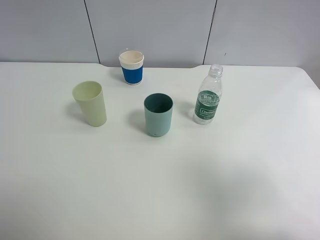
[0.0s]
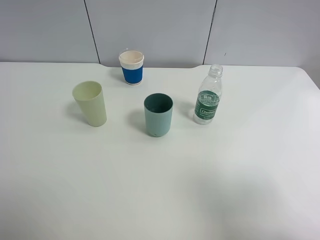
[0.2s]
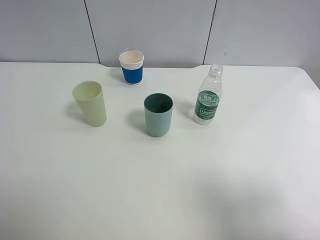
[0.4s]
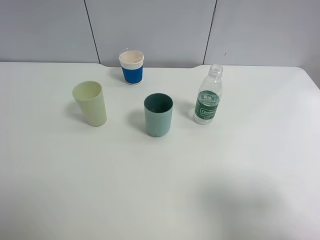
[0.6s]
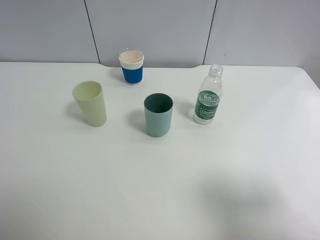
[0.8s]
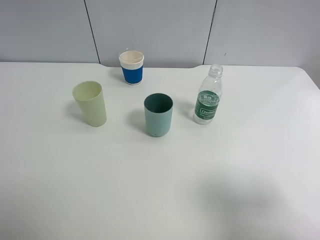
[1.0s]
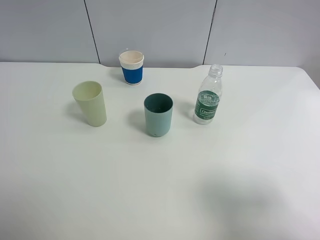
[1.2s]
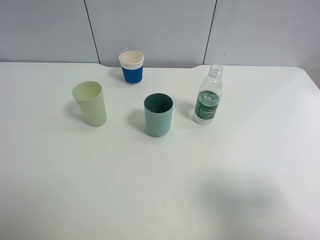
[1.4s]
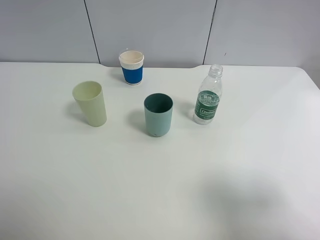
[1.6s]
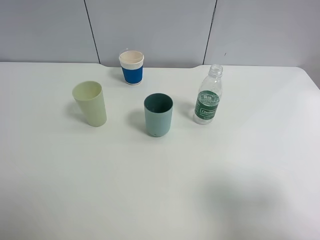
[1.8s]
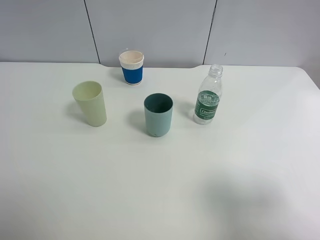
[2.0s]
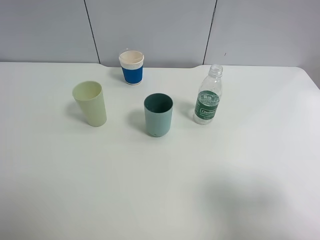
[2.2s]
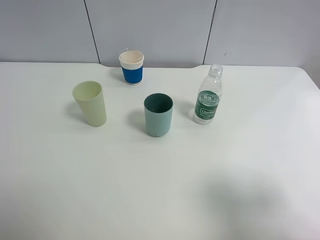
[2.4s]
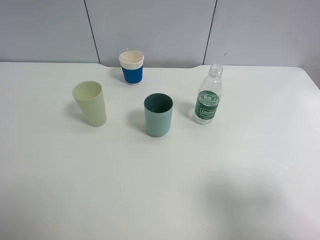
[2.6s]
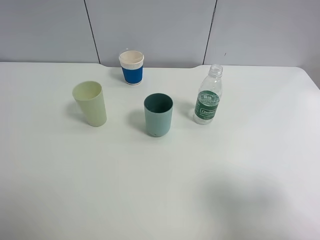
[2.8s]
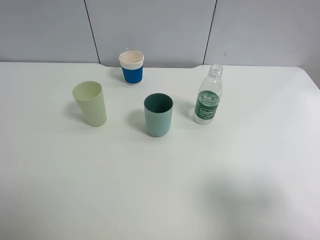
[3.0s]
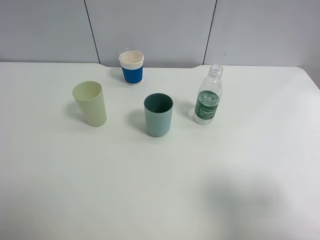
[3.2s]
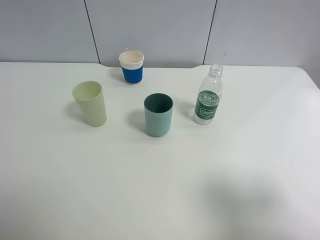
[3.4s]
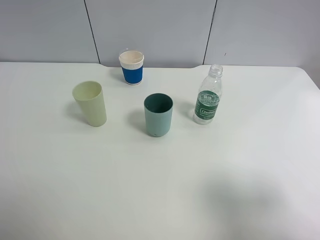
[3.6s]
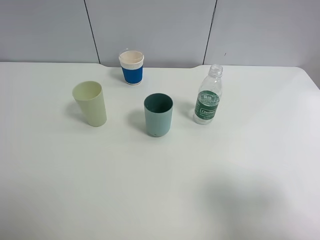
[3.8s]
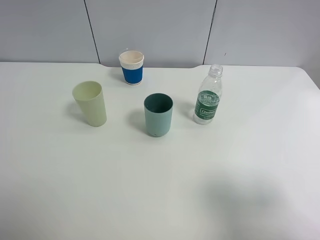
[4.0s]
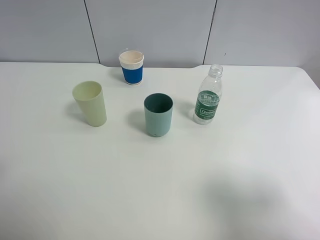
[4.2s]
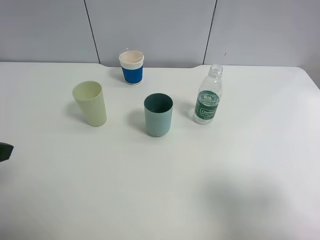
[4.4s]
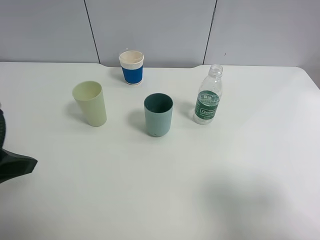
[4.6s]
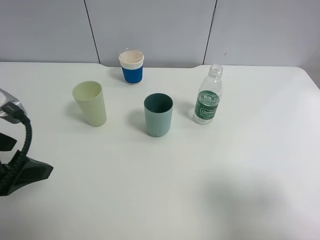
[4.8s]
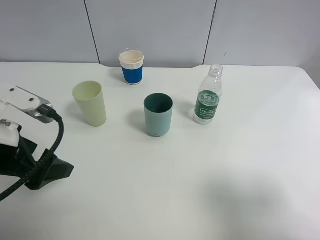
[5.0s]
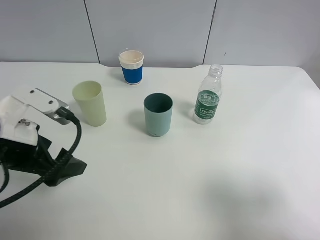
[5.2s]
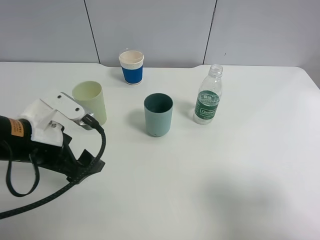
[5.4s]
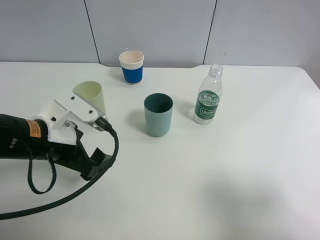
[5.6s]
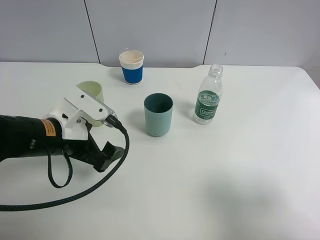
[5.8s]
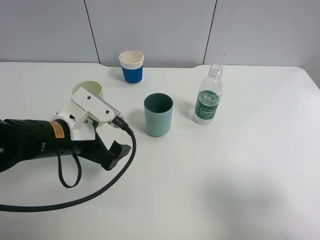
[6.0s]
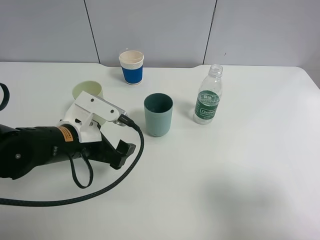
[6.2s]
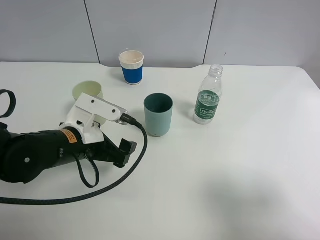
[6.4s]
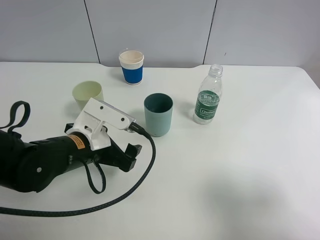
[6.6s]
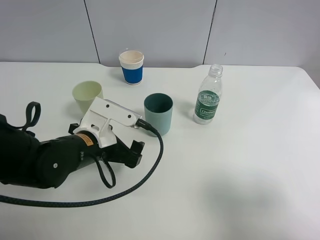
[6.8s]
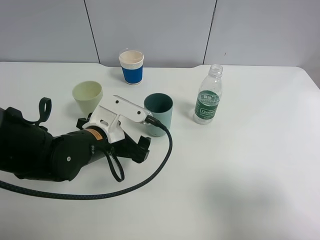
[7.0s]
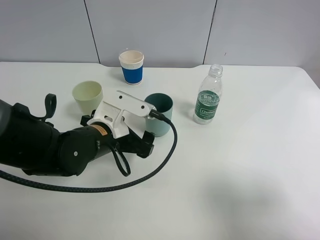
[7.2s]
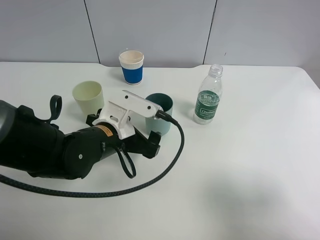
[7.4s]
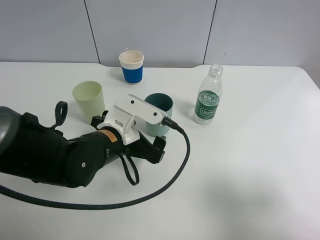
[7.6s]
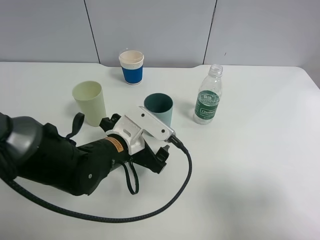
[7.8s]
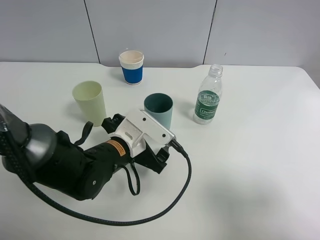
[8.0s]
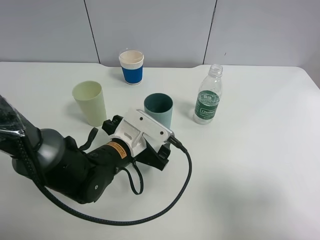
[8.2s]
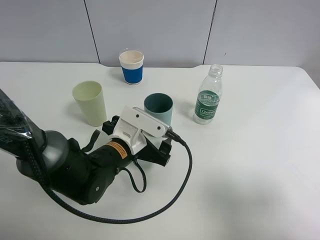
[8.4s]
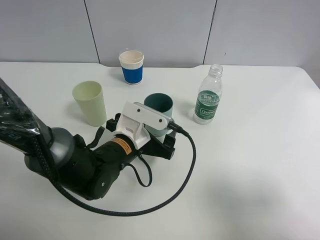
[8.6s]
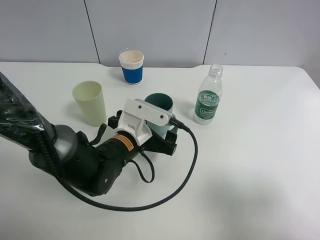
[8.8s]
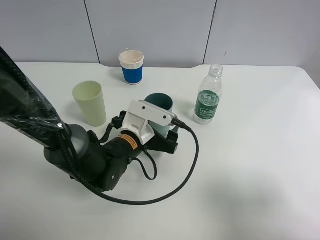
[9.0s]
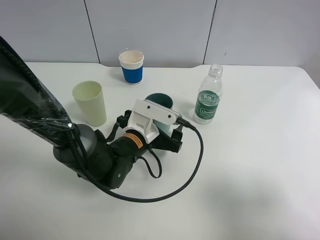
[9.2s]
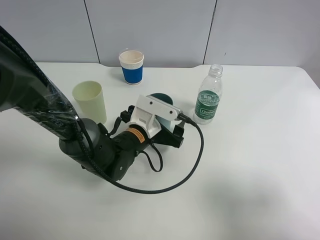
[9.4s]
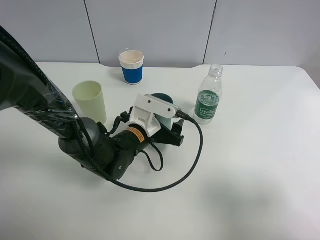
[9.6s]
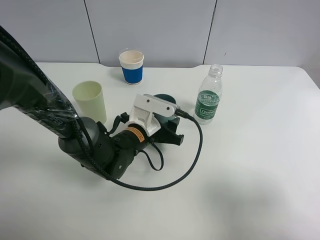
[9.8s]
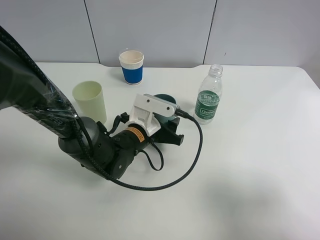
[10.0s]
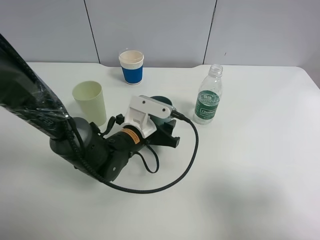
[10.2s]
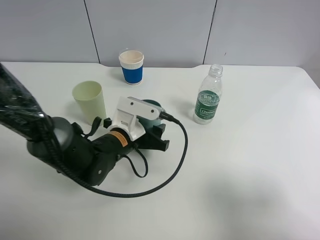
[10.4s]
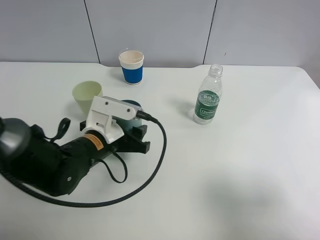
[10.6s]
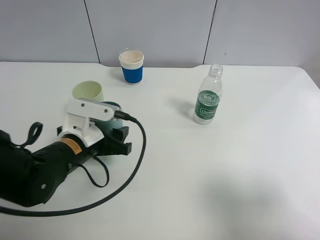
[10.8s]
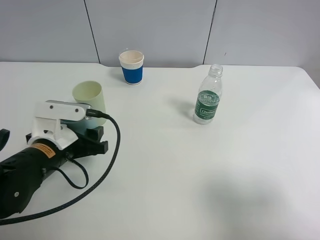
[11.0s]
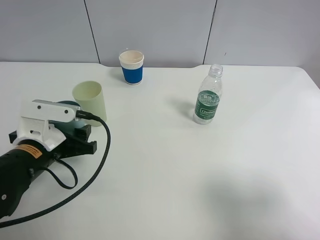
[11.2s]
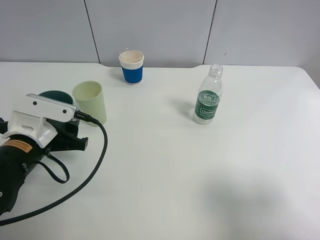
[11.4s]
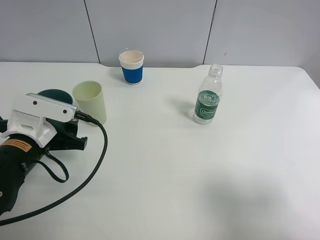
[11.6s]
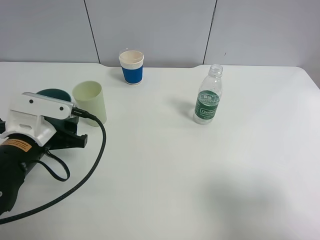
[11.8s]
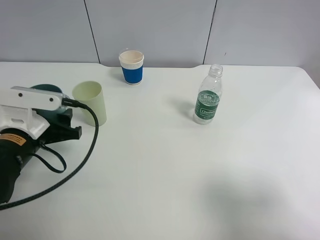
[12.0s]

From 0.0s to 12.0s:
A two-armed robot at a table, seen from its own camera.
Task of the whole recording: use a clamp to hold the bottle of the drink, pour the beverage into a random cup, then clamp the cup containing the drink and pour the drink into another random cup.
Step, from 0.0s to 11.4s: Pick up the blue plastic cup bottle with left gripper.
From 0.0s to 1.6s: The right gripper heads downward, covering approximately 5 cm.
From 1.6s to 3.0s: Neither gripper changes place.
From 4.4s to 6.0s: The left gripper travels downward, to the right and forward by some 20 cm.
From 6.0s to 7.6s: The left gripper heads to the right, covering roughly 5 cm.
From 7.6s to 9.0s: The left gripper ends up approximately 5 cm from where it was.
From 9.0s to 10.4s: The left gripper closes up.
From 10.4s to 12.0s: The left gripper travels to the left and upward by approximately 15 cm.

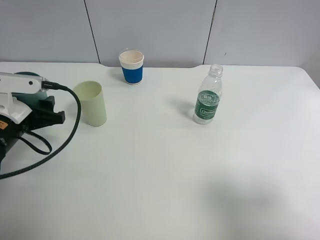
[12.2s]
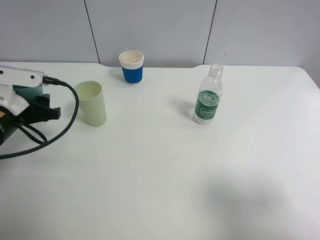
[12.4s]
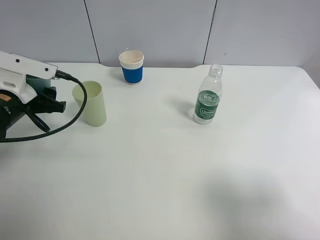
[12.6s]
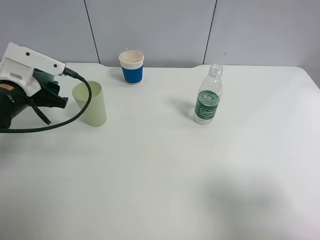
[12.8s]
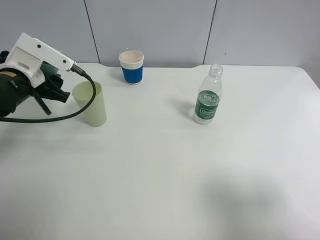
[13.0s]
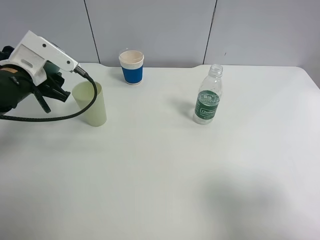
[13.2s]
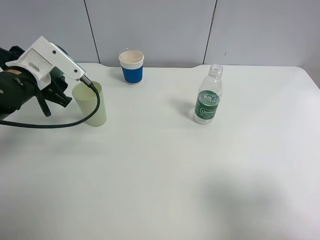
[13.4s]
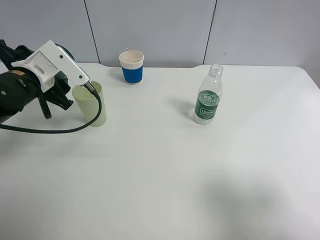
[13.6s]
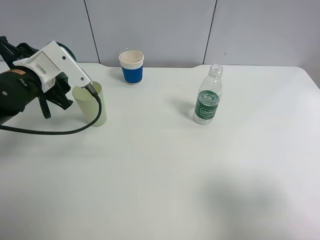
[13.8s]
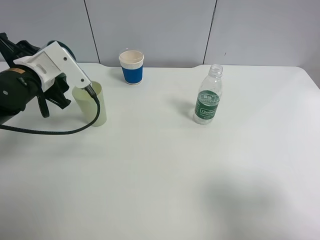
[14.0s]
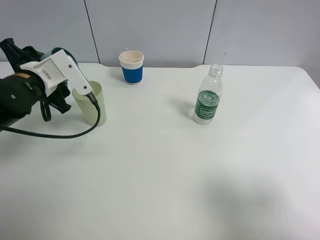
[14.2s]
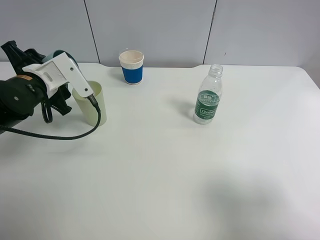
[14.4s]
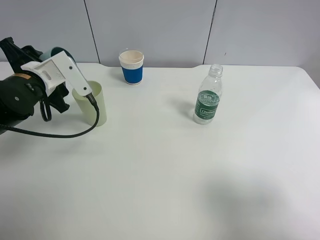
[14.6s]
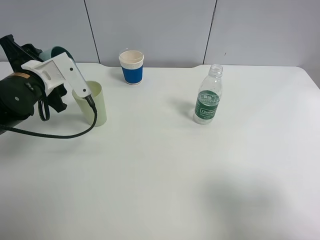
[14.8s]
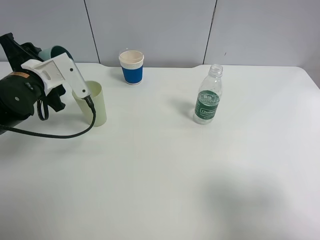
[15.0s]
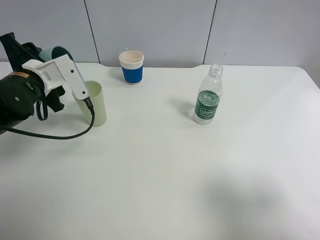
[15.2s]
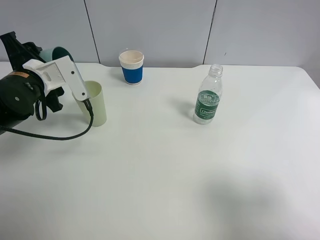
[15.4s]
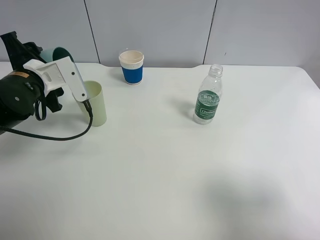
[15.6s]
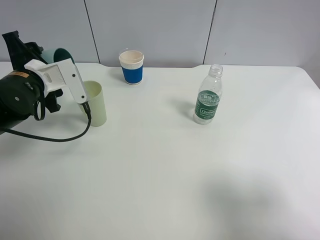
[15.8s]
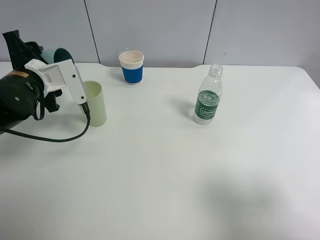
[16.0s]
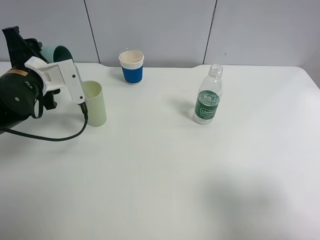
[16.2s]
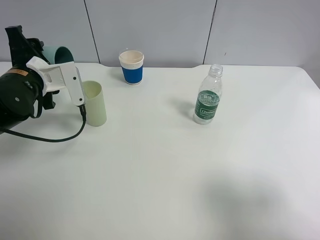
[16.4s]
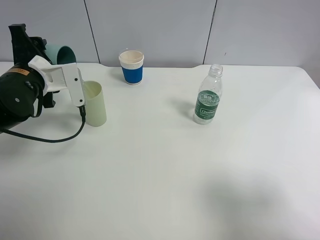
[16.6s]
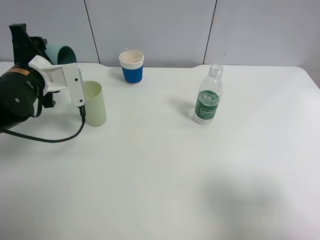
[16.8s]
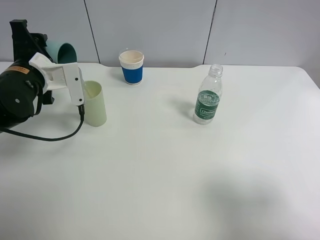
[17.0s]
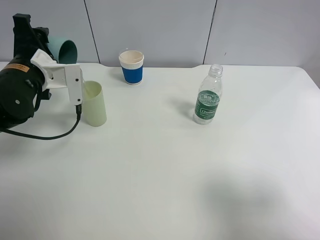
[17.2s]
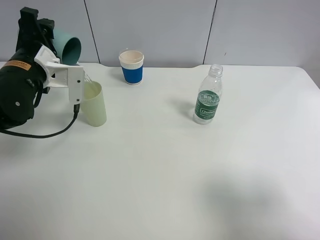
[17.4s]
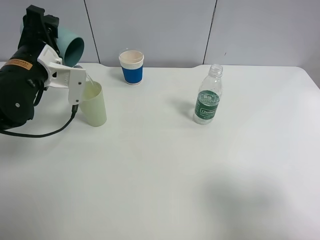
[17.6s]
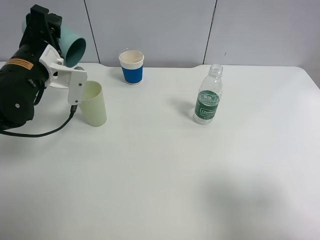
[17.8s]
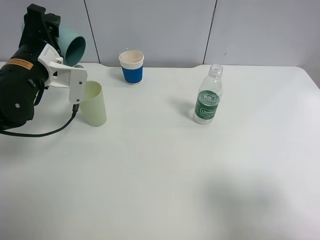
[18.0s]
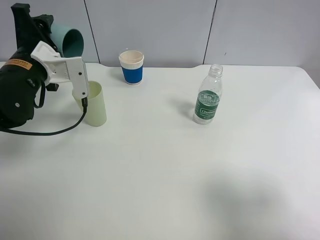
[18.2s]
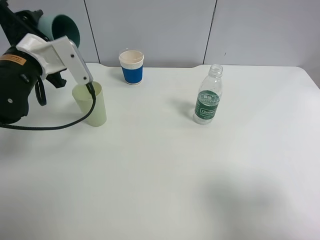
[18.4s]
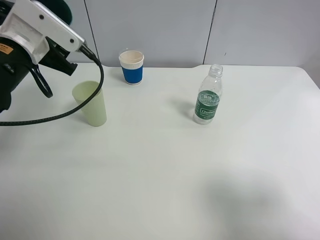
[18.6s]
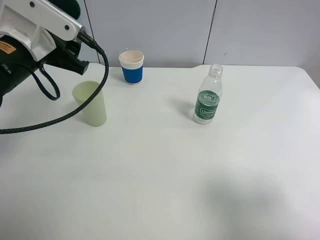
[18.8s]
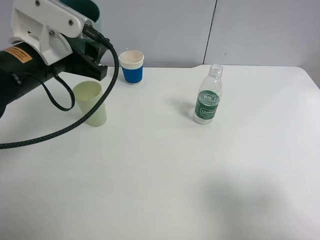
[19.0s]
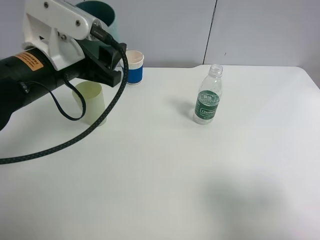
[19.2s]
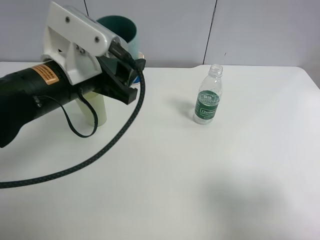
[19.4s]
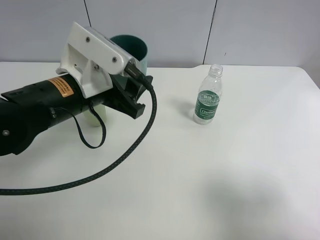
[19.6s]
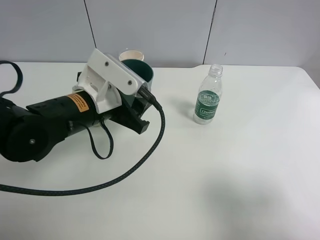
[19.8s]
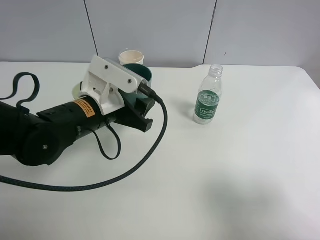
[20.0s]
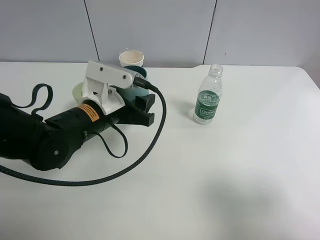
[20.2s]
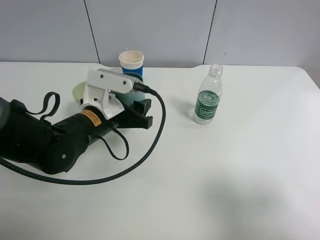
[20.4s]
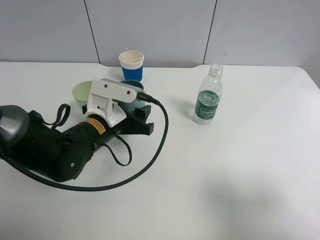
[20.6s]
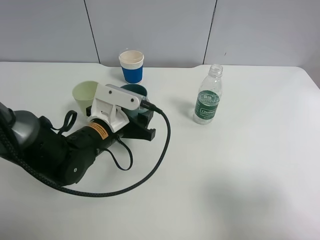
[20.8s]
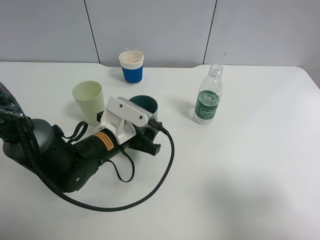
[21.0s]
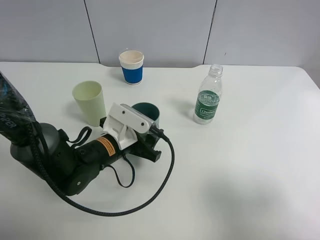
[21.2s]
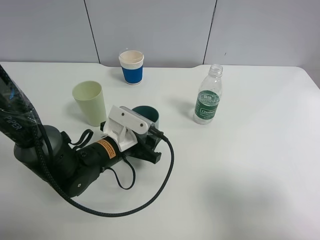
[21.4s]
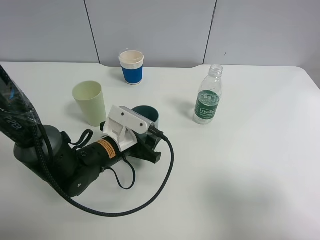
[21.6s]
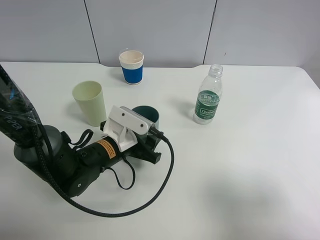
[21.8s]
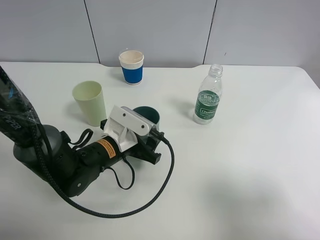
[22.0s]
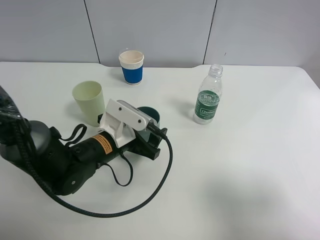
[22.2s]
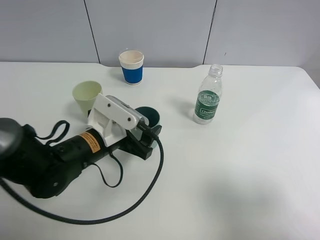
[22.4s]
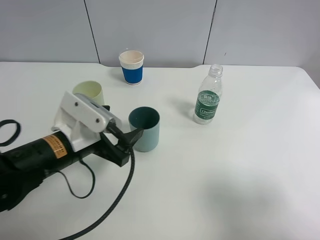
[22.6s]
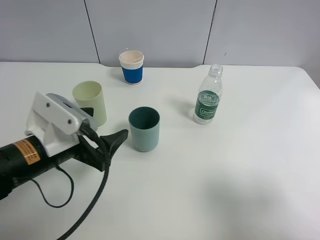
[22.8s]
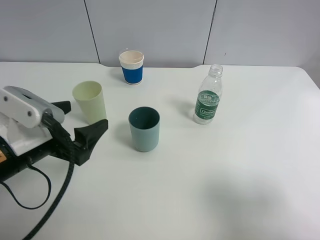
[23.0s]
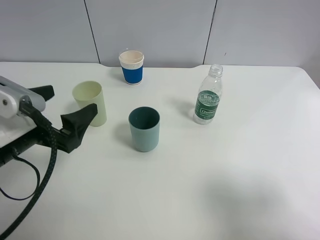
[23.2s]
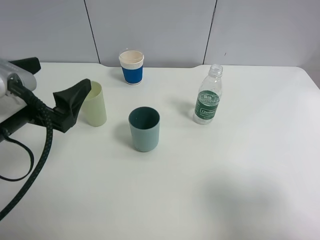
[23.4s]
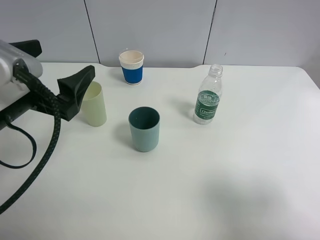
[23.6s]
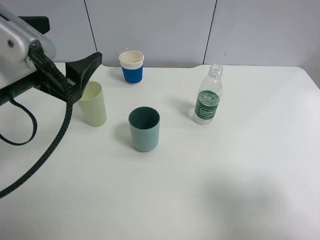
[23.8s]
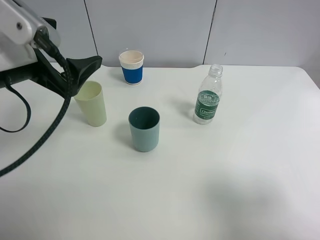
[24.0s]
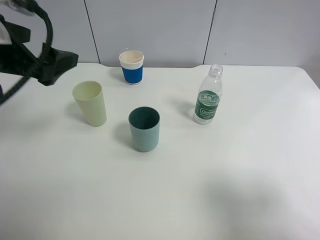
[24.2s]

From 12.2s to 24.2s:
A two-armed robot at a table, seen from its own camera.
Task of the whole recording: use a clamp to hold the bottle of the drink, pour the beverage into a random cup, then clamp the cup containing the drink and pour the drink into another random cup.
Step, from 12.2s to 18.4s: Pour the water into the green plastic cup with left gripper.
Step, from 18.6s to 22.6s: Place the blue plastic cup on the table with left gripper.
From 12.2s to 13.8s: The left gripper heads forward, covering about 5 cm.
From 13.8s to 15.2s: The grippers move only a little.
From 15.2s to 16.6s: The grippers make only small movements.
From 18.2s to 19.8s: The left gripper heads to the right and backward, covering approximately 15 cm.
From 19.8s to 21.2s: The left gripper goes roughly 10 cm downward.
From 21.2s to 22.6s: The left gripper shifts some 10 cm upward, to the left and backward, and opens.
From 22.6s to 24.2s: The left gripper heads upward and to the left, covering about 20 cm.
